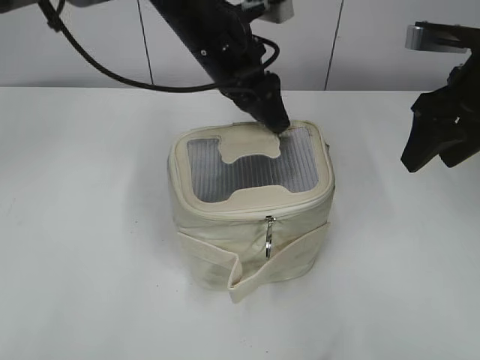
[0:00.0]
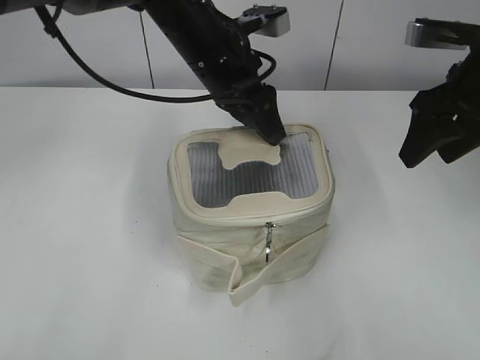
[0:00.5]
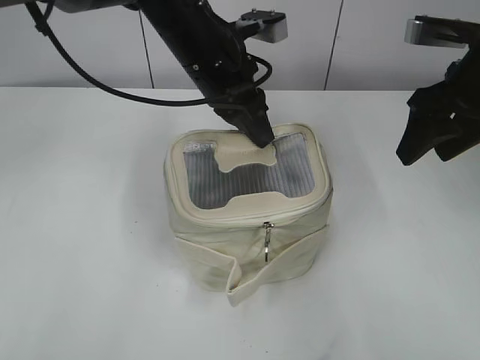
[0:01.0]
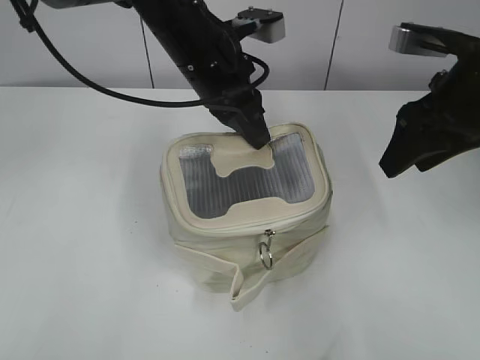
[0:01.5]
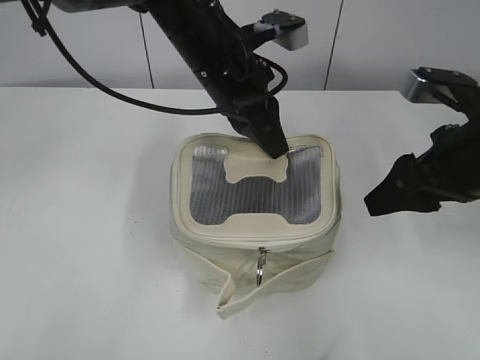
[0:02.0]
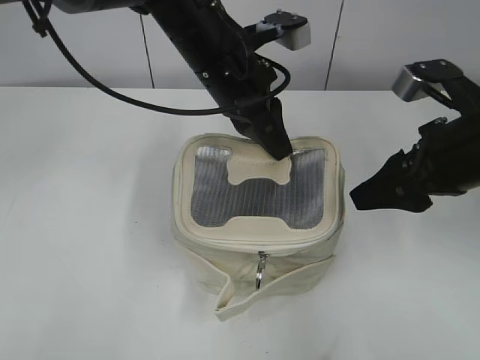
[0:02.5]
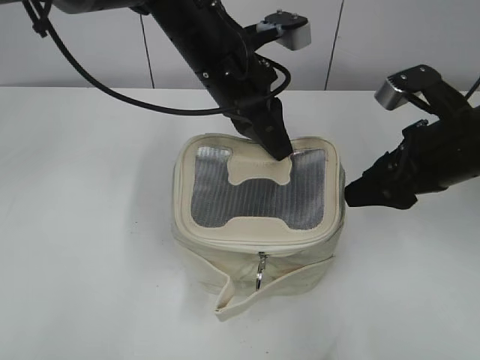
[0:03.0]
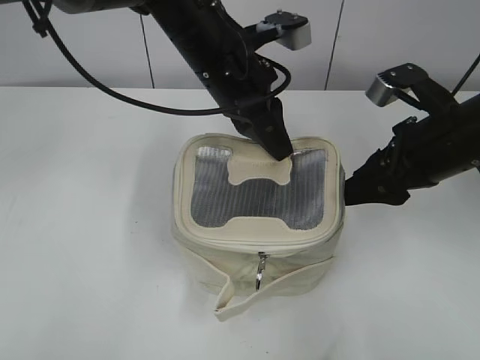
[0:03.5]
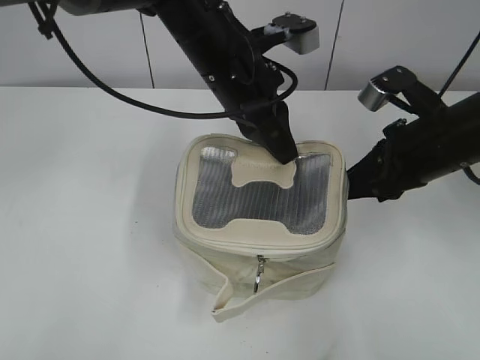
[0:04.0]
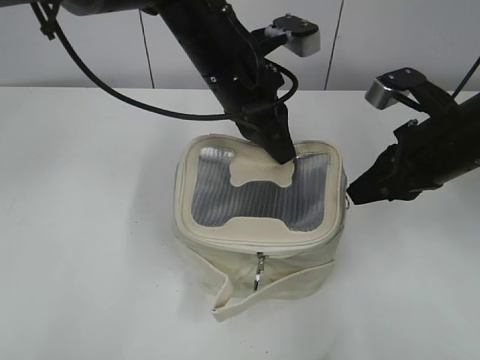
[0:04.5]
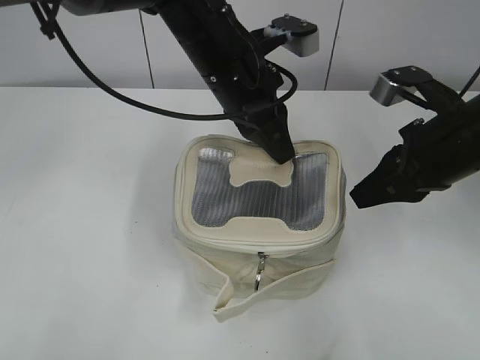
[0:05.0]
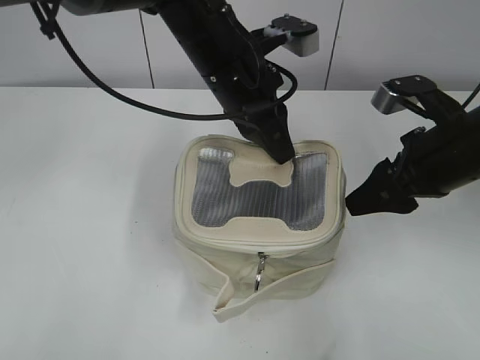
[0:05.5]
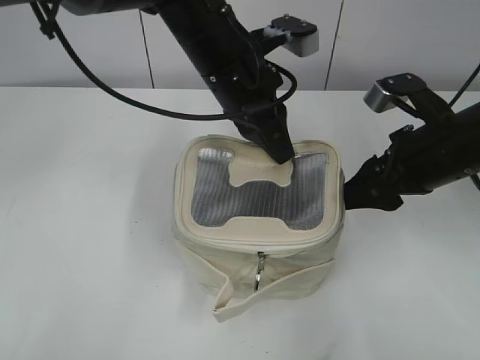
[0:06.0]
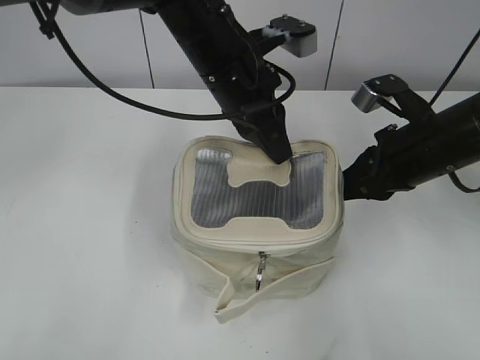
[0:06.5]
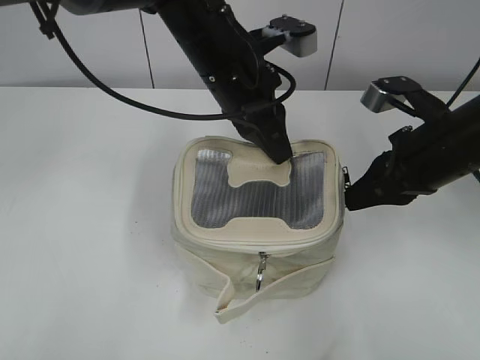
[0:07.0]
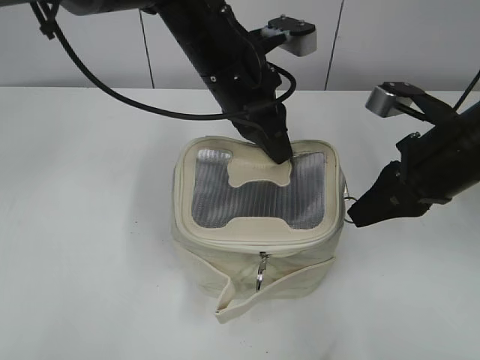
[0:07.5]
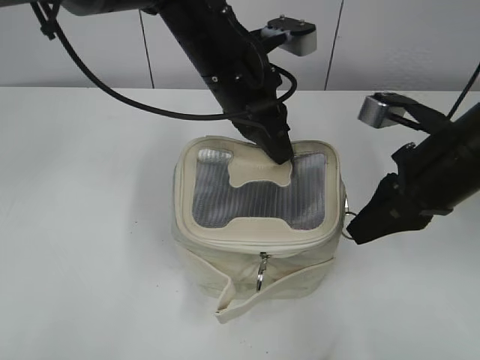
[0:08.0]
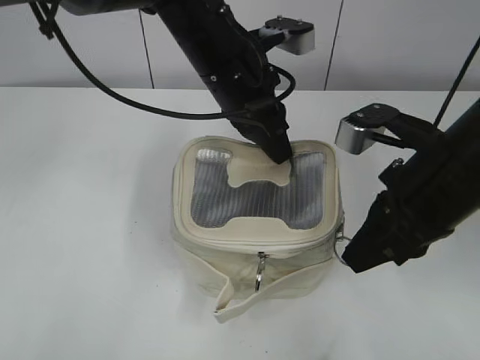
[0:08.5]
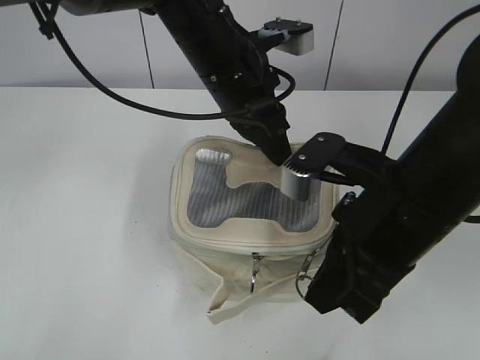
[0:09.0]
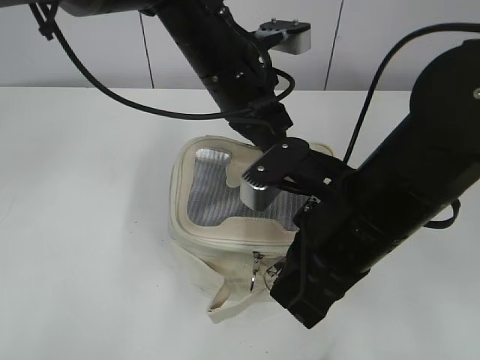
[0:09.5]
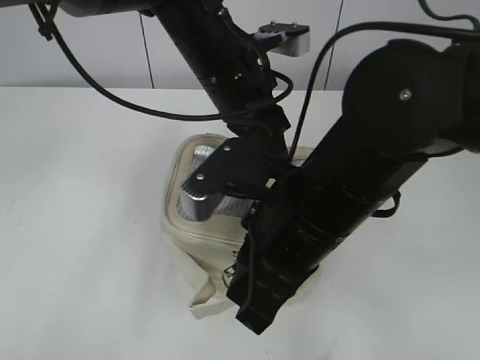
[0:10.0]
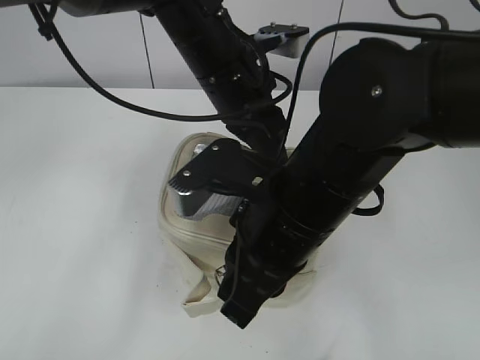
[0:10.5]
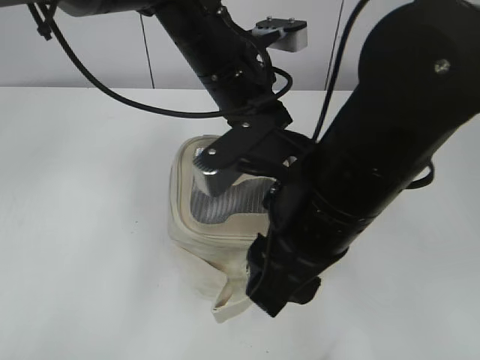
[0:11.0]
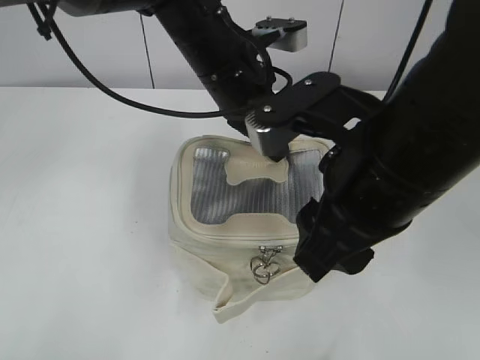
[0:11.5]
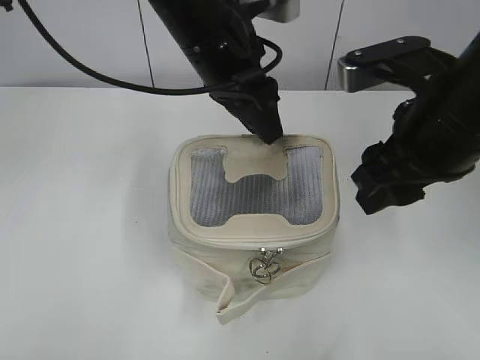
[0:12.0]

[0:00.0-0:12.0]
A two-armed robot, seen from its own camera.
Step, 0:00.0 to 0:10.5: Pull open the zipper with your right hand.
0:00.0 to 0:02.0: The left gripper closes its fingers. Meanwhile the right gripper travels backward by about 5 cm.
0:02.0 to 0:04.0: The right gripper moves some 5 cm, and closes.
0:04.0 to 0:06.0: The right gripper opens up.
0:06.0 to 0:08.0: The right gripper closes.
0:08.0 to 0:10.0: The right gripper is displaced to the left and backward by approximately 15 cm.
0:10.0 to 0:12.0: The left gripper opens. Meanwhile the right gripper heads to the right and upward, covering about 10 cm, and opens up.

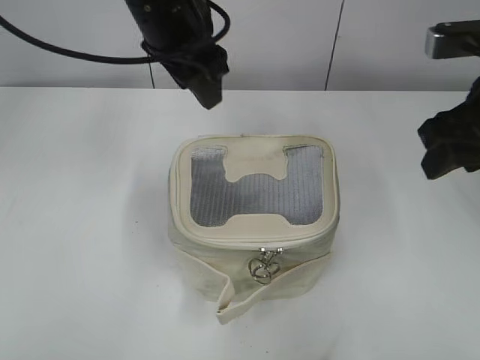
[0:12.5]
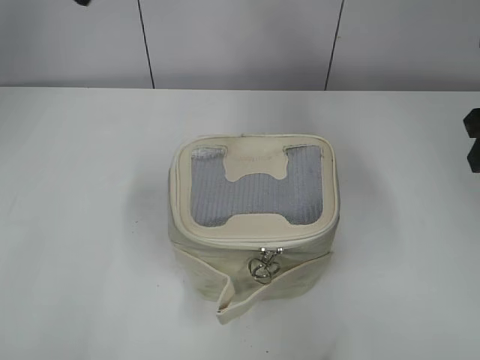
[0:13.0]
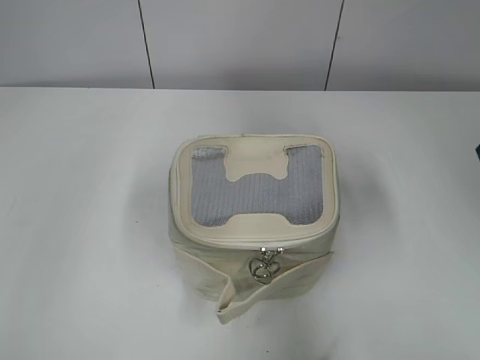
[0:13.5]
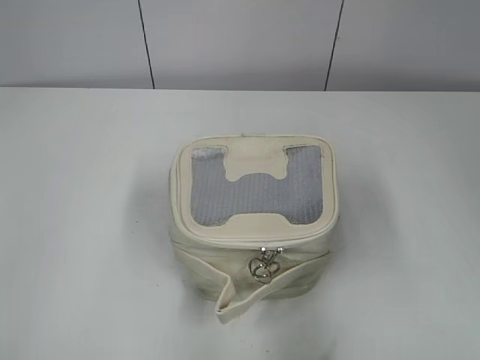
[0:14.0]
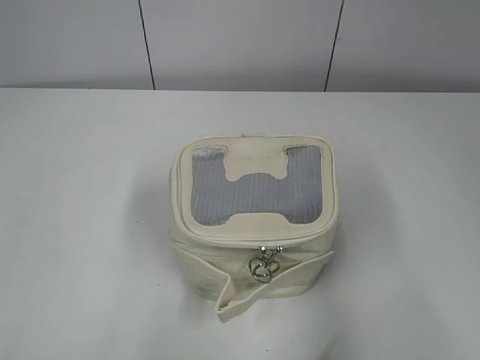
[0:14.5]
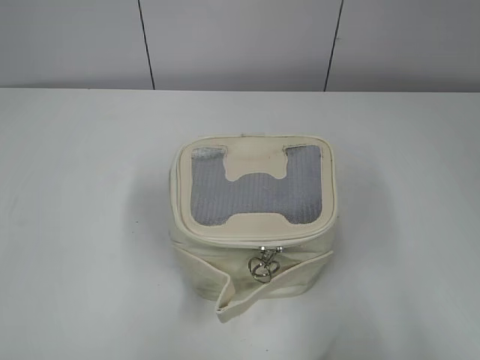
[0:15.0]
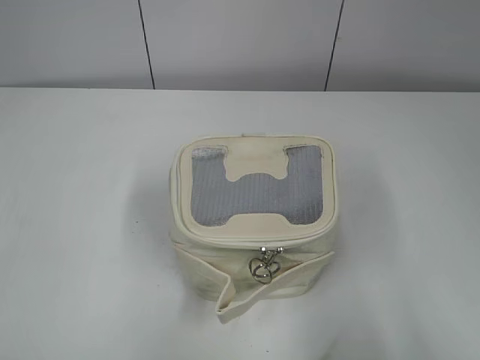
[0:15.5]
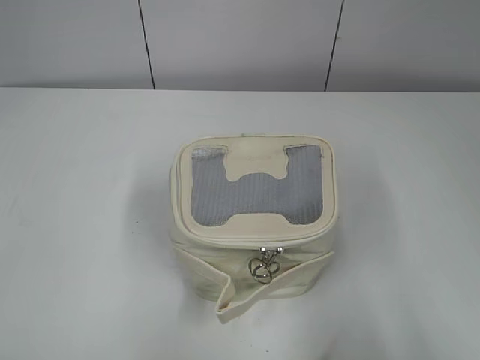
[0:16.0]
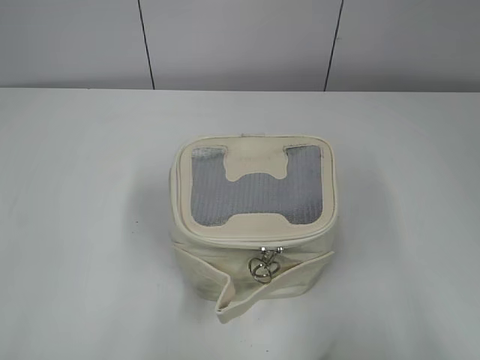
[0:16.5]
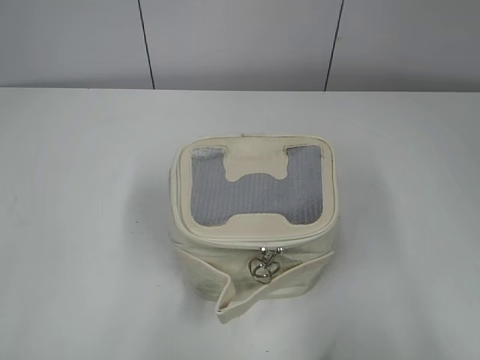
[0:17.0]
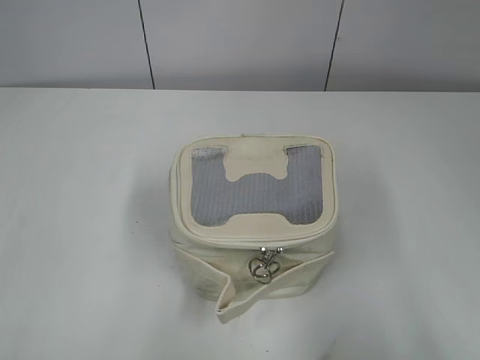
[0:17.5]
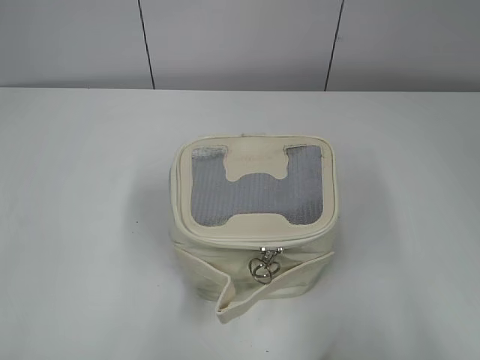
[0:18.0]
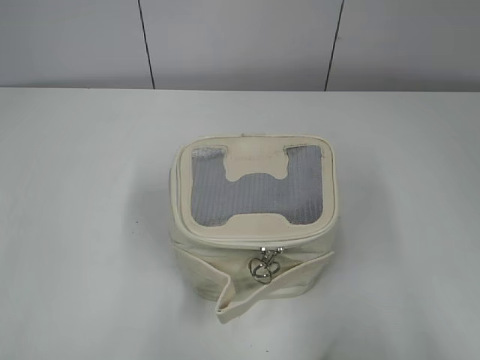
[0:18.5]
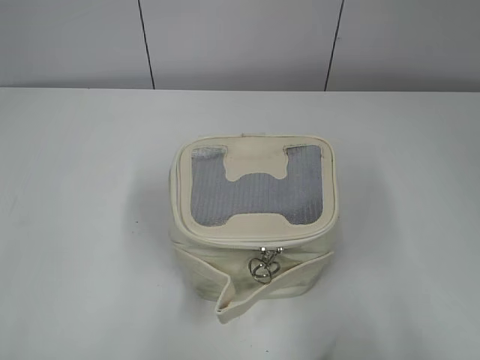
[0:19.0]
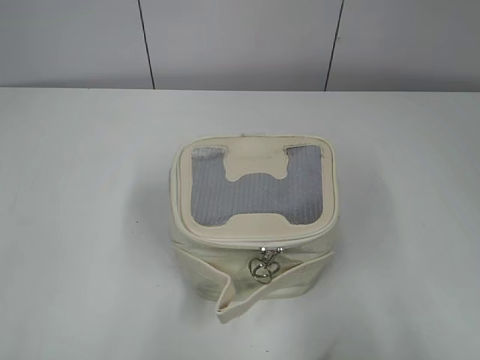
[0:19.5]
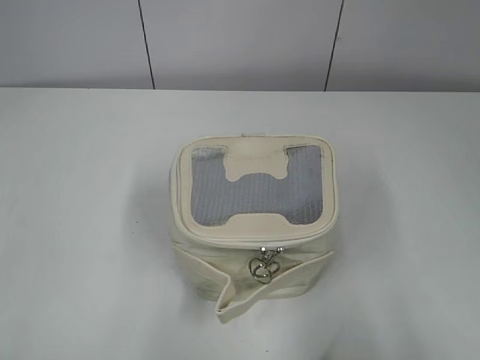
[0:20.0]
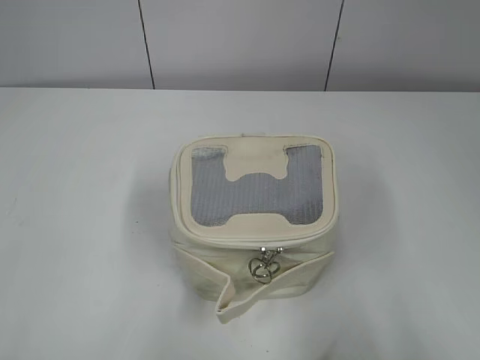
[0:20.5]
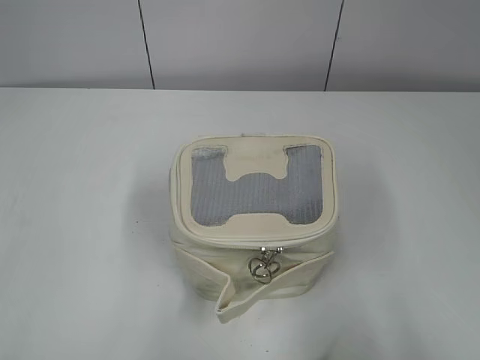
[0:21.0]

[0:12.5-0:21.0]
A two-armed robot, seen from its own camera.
0:12.5 to 0:14.5: The right gripper goes approximately 20 cm backward and to the right; the left gripper travels backward and to the left by about 40 cm.
0:19.0 to 0:21.0: Neither gripper changes place.

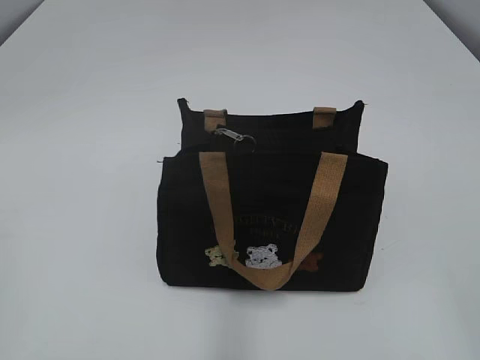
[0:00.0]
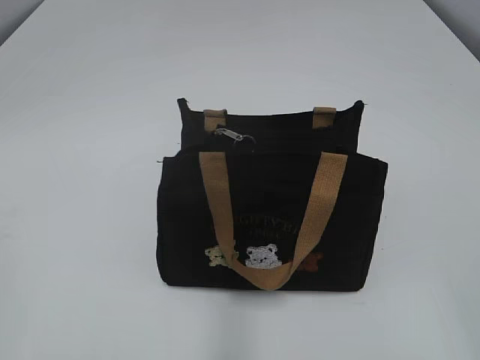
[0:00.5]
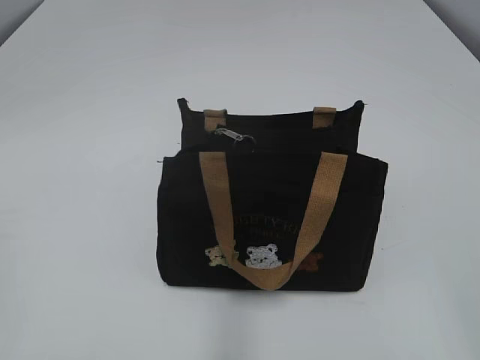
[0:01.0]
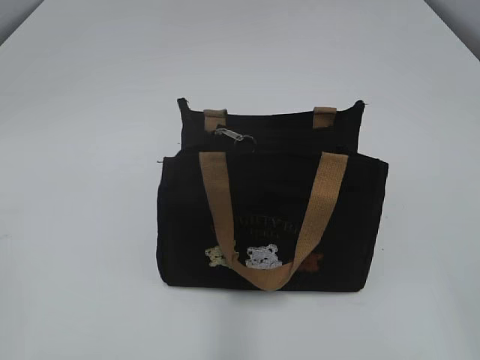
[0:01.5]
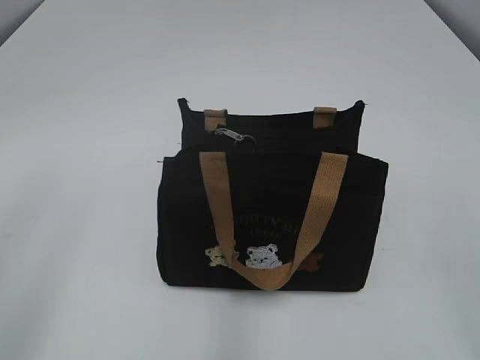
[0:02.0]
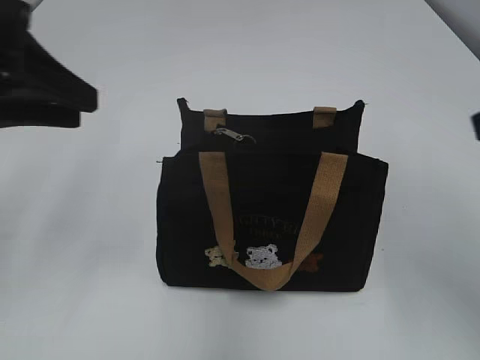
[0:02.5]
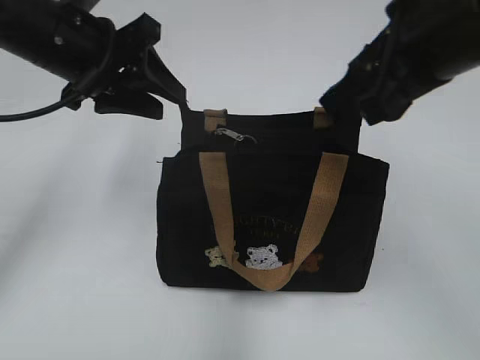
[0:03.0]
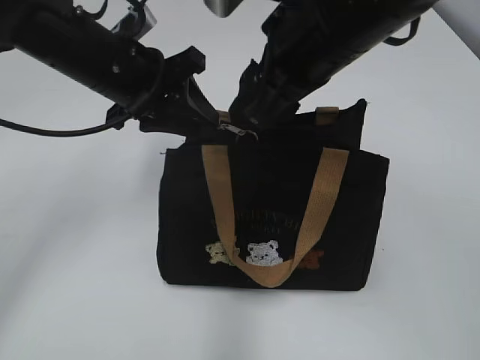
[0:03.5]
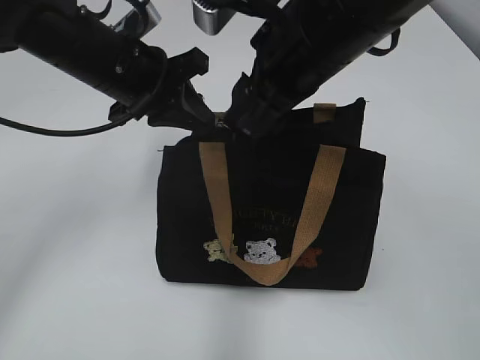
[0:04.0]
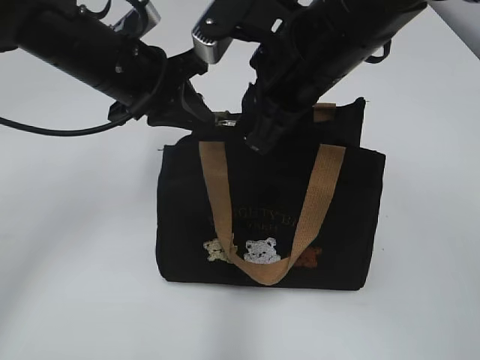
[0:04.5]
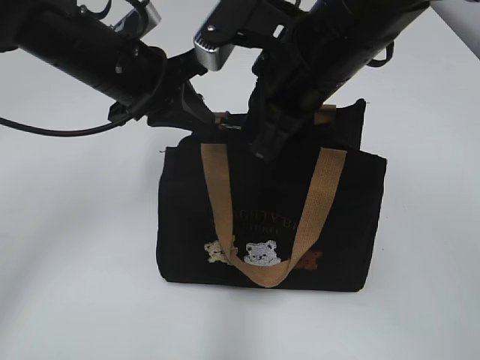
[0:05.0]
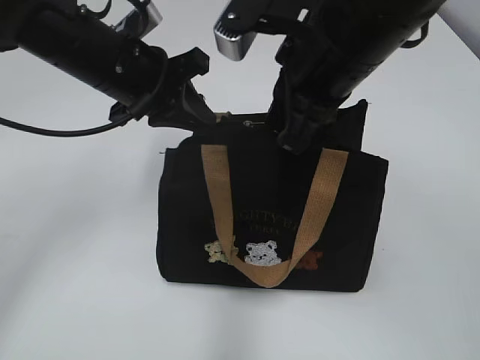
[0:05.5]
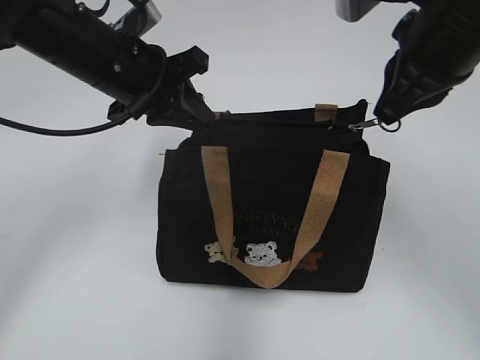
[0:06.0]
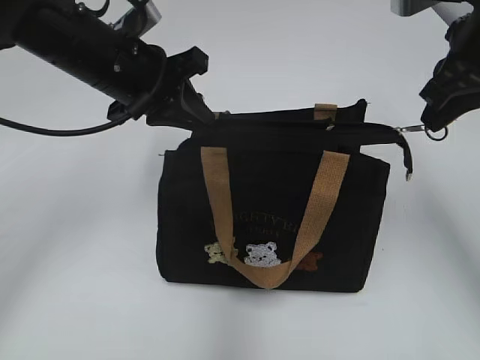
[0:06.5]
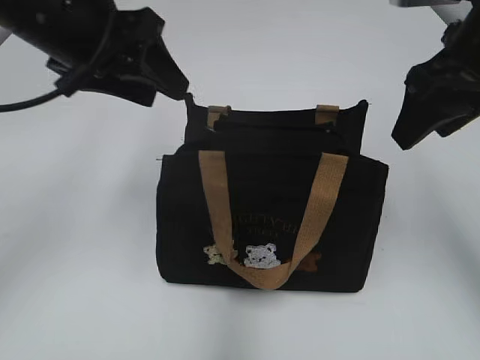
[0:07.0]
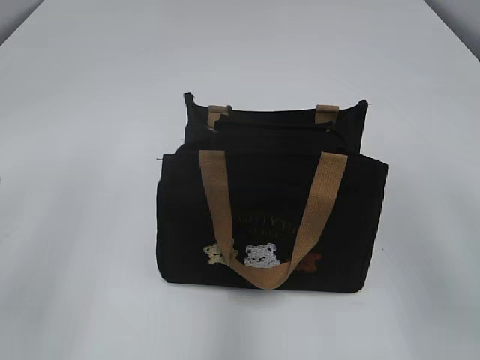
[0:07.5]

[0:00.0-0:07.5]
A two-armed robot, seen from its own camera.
Step, 0:00.0 to 0:06.5: Pull open the zipper with your right hand.
0:02.0 to 0:04.0: The right gripper moves forward and to the left, roughly 35 cm. The left gripper shifts some 30 cm forward and to the right, and closes its fingers.
0:04.0 to 0:05.5: The right gripper closes.
0:05.5 to 0:07.5: The right gripper shifts some 20 cm to the right and backward, and opens its fingers; the left gripper travels backward, to the left and upward by about 25 cm, and opens.
